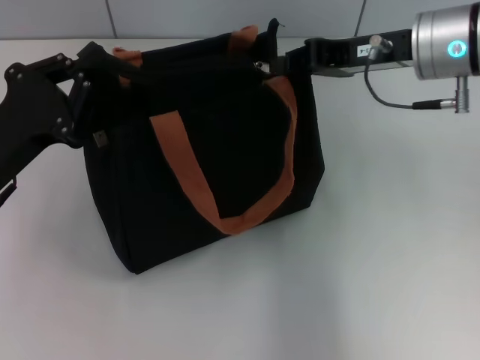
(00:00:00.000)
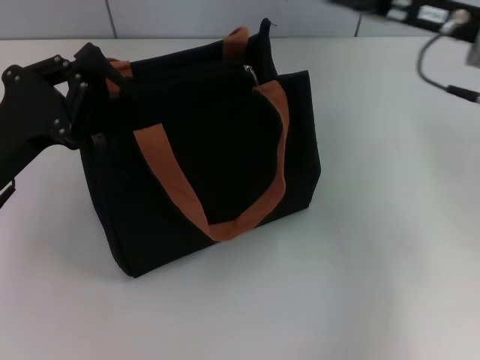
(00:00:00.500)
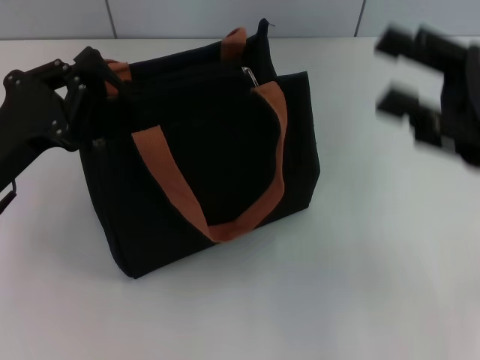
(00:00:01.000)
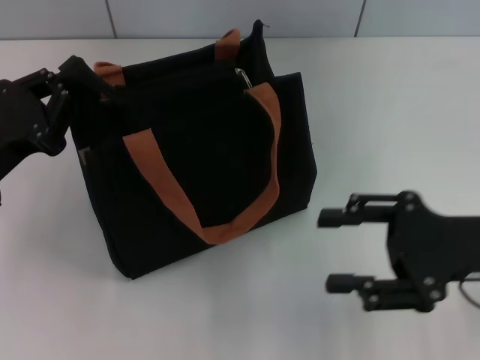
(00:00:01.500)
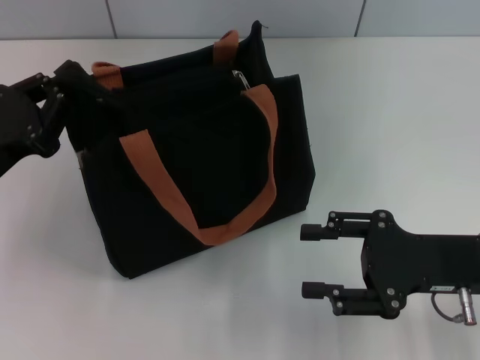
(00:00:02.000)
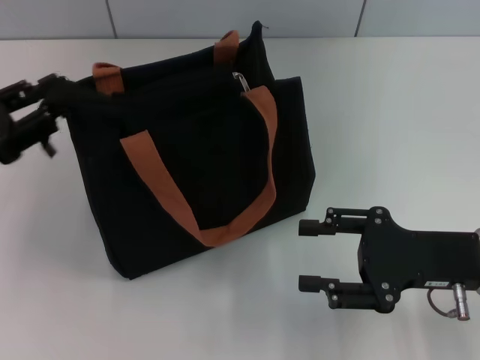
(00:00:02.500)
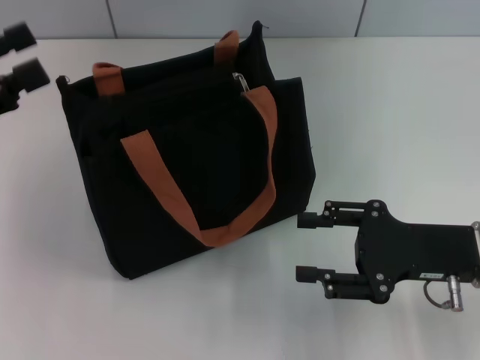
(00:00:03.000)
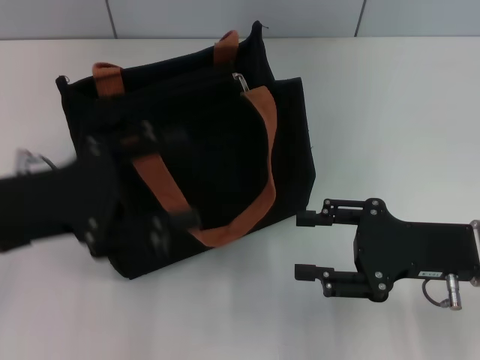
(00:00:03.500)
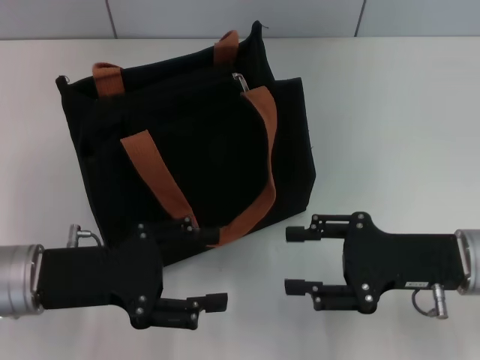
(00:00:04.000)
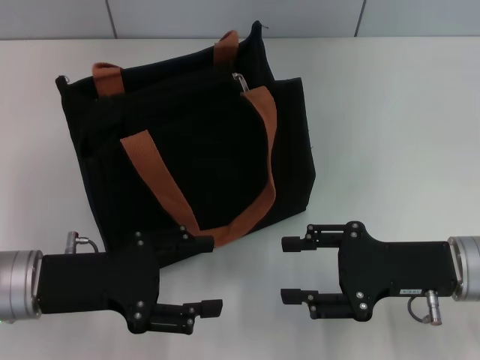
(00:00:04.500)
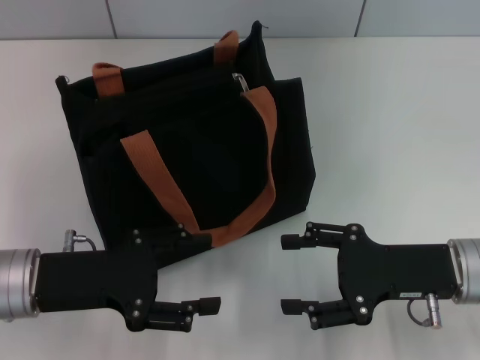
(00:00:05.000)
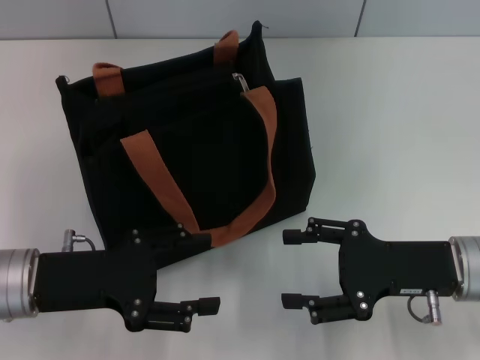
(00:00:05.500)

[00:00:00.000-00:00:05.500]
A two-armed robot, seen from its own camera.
Step, 00:00:01.000 to 00:00:02.500: Grab the zipper with your left hand.
00:00:00.000 to 00:00:02.000: The right gripper moves backward and downward, about 20 cm, and opens up.
00:00:02.000 to 00:00:03.500: The left gripper opens its fingers.
00:00:03.500 to 00:00:05.500: The left gripper is displaced downward by some 5 cm.

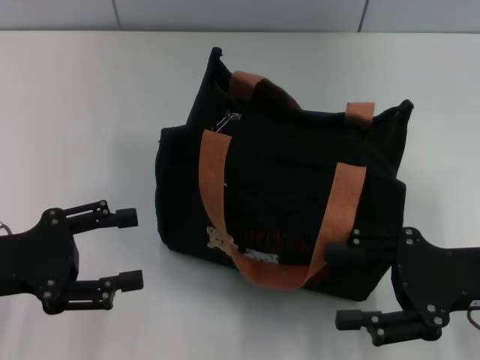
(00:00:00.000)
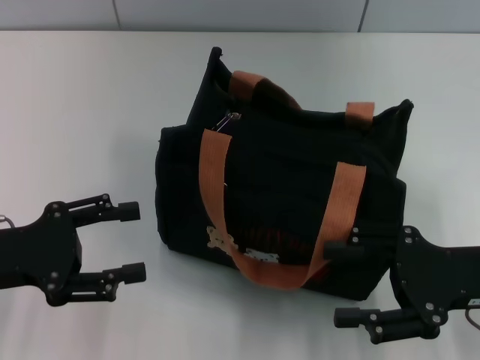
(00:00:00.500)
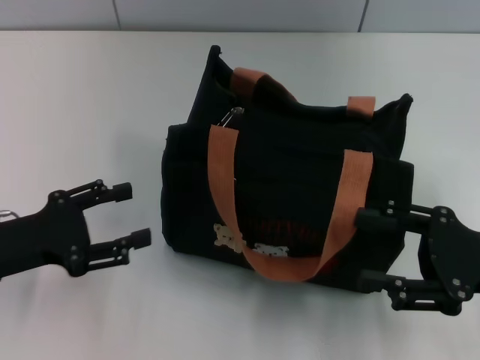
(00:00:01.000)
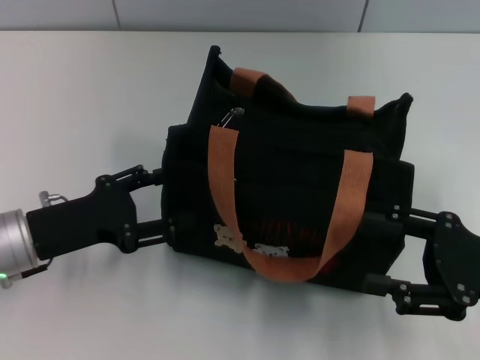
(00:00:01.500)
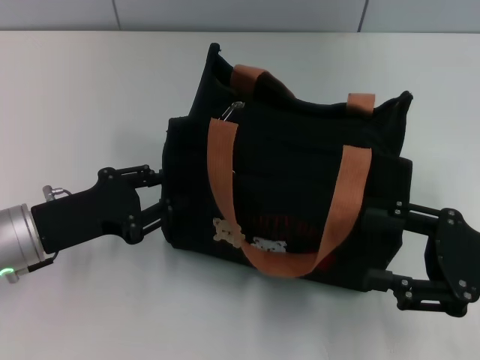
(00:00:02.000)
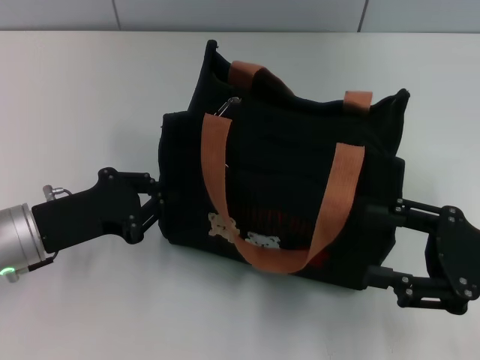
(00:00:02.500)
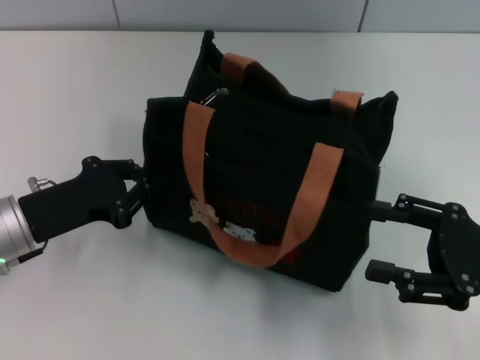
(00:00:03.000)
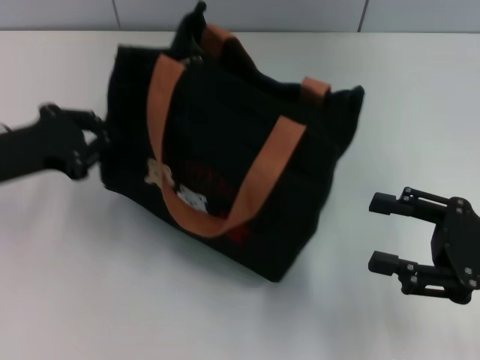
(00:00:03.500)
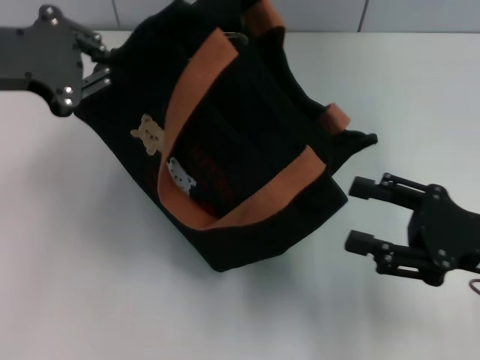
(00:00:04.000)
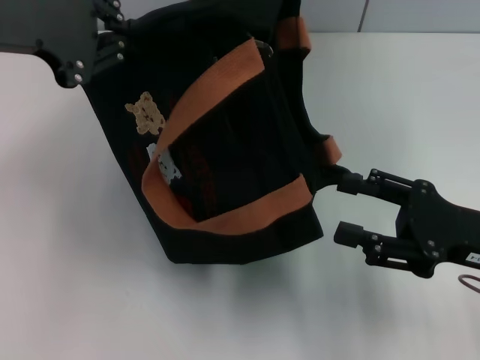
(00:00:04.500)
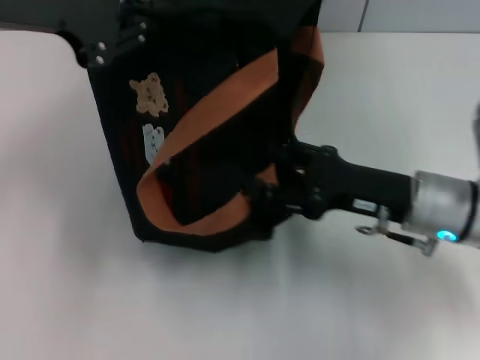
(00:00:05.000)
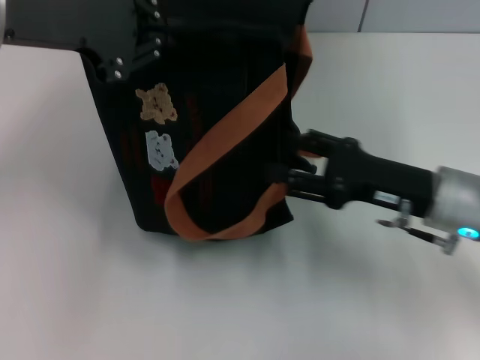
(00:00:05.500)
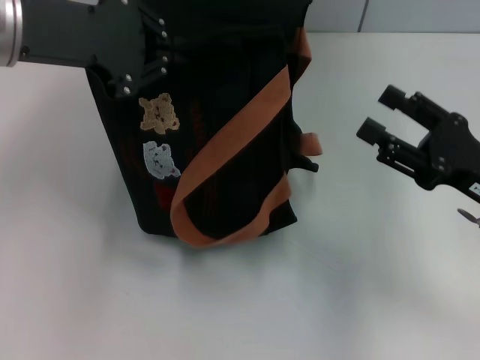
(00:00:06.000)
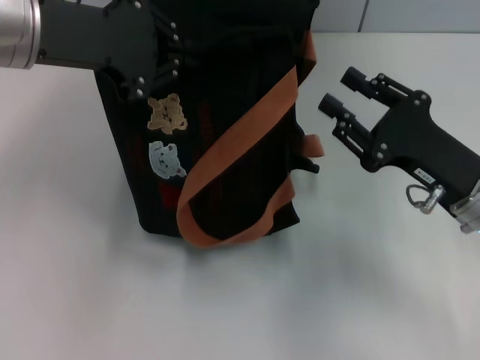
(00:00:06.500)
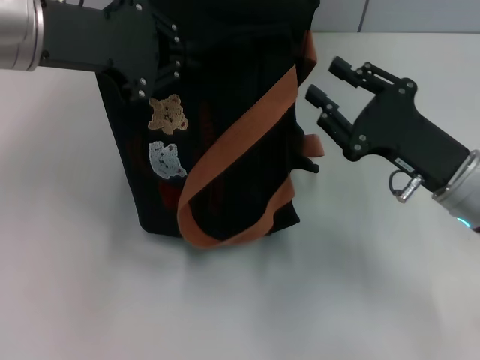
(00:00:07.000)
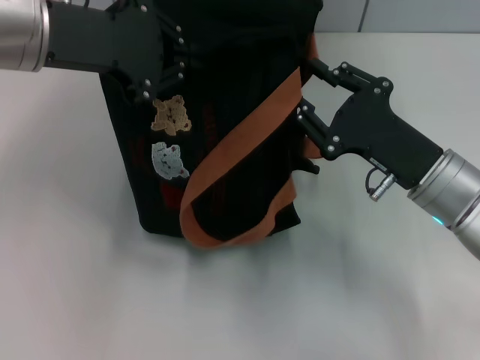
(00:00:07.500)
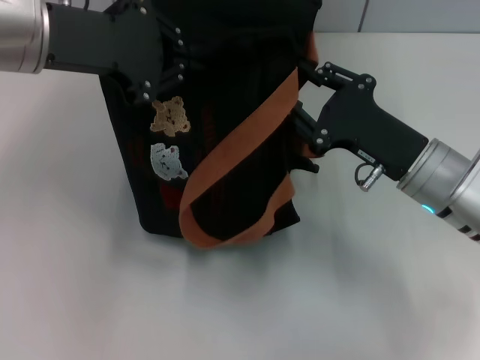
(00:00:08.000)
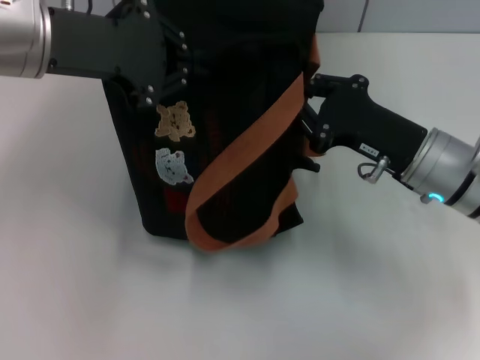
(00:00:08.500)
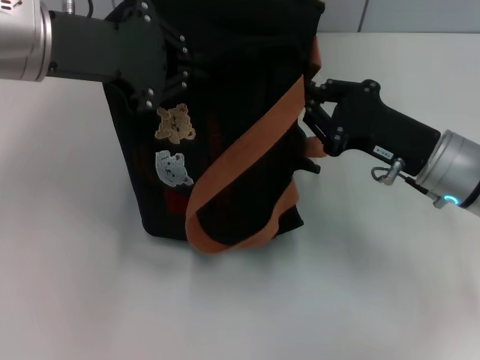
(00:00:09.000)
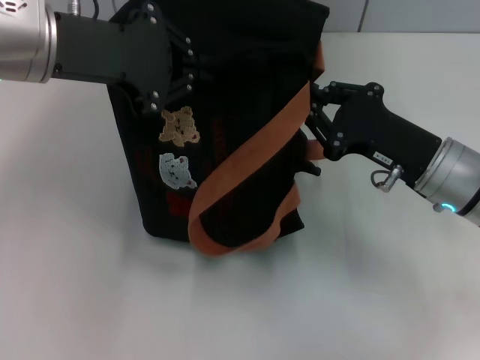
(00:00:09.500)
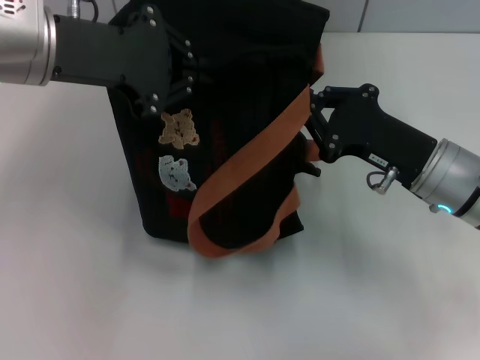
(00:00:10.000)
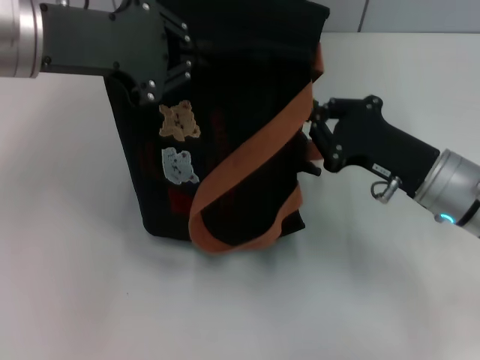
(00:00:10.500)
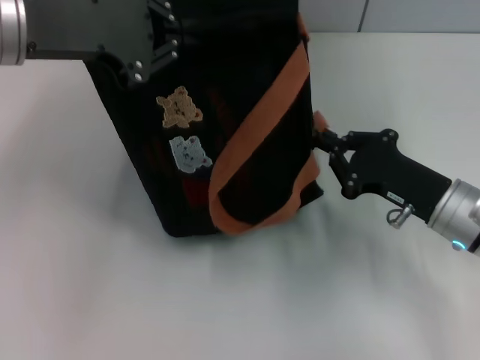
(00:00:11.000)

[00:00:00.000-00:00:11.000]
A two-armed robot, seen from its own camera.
00:00:00.000 to 00:00:02.000: The left gripper shifts by roughly 5 cm.
00:00:02.000 to 00:00:03.500: The left gripper travels upward by roughly 5 cm, and closes.
00:00:03.500 to 00:00:05.500: The left gripper heads upward and to the right, covering roughly 15 cm. The right gripper heads to the left and forward, covering approximately 10 cm.
00:00:05.500 to 00:00:07.500: The right gripper travels to the right and back again, some 5 cm each way.
00:00:07.500 to 00:00:09.000: The right gripper closes up.
00:00:09.000 to 00:00:11.000: The right gripper shifts by approximately 5 cm.

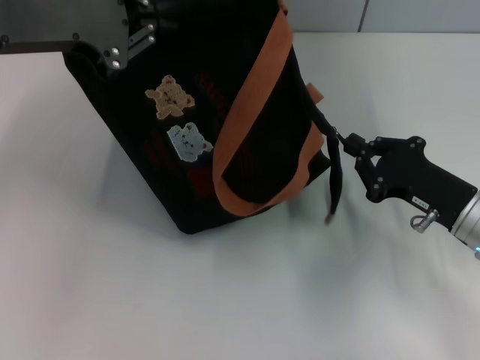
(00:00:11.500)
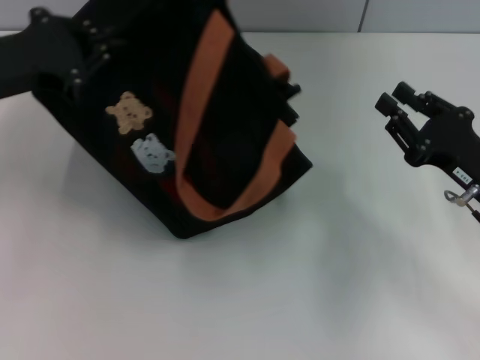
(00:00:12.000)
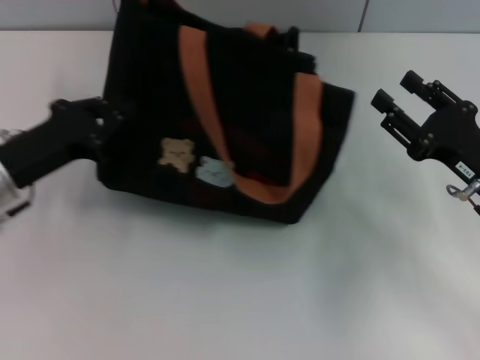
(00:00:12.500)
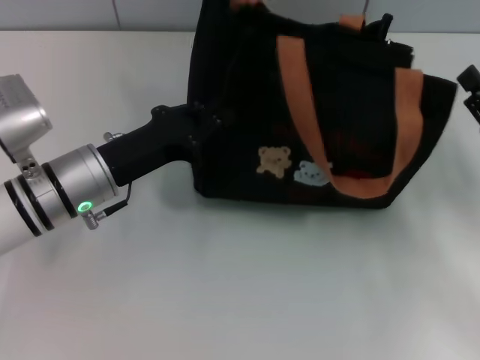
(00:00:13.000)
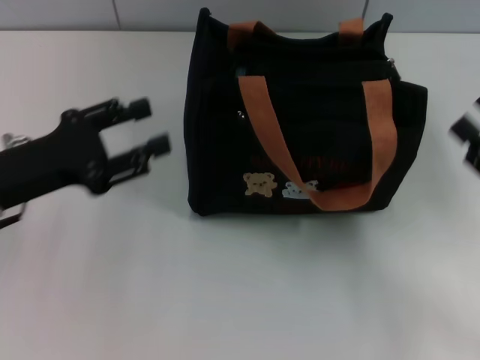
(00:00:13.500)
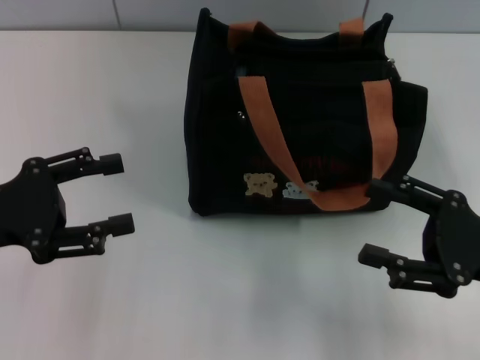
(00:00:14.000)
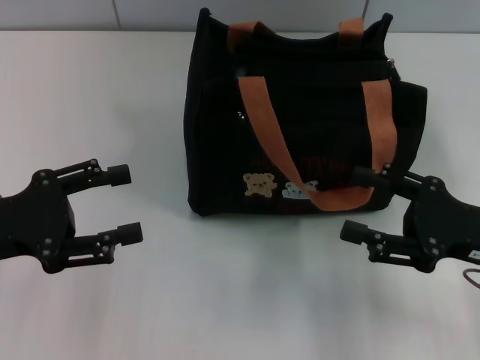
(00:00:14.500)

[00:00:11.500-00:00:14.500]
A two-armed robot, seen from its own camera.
Step, 00:00:12.000 to 00:00:13.000: Grab the bag with your left hand.
00:00:11.500 to 00:00:13.000: The right gripper heads to the right, covering roughly 5 cm, and opens. Meanwhile the left gripper heads downward, covering approximately 20 cm.
00:00:13.000 to 00:00:14.500: The left gripper travels to the left and backward by some 15 cm, and opens.
